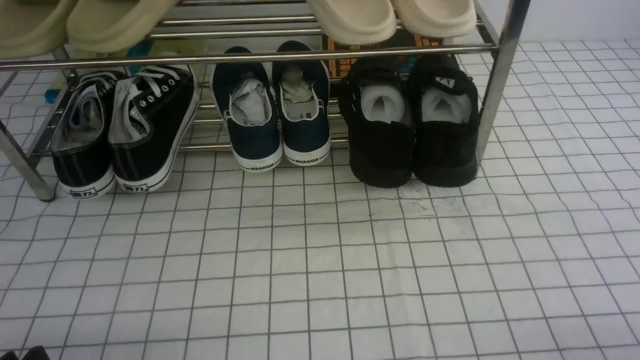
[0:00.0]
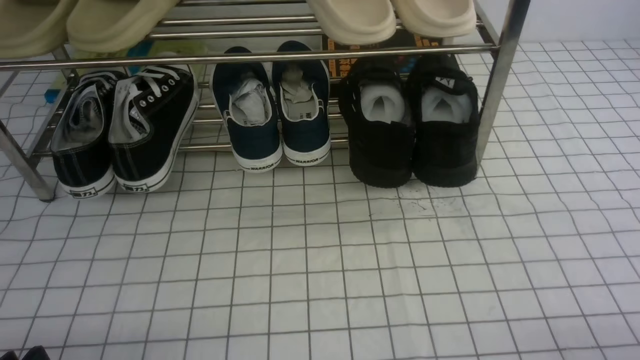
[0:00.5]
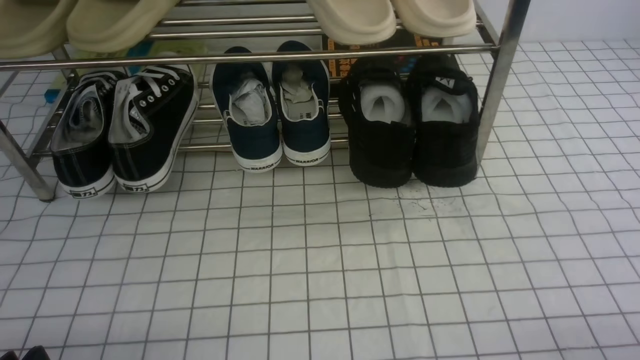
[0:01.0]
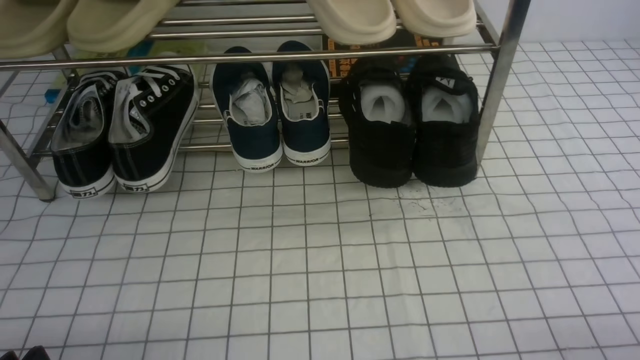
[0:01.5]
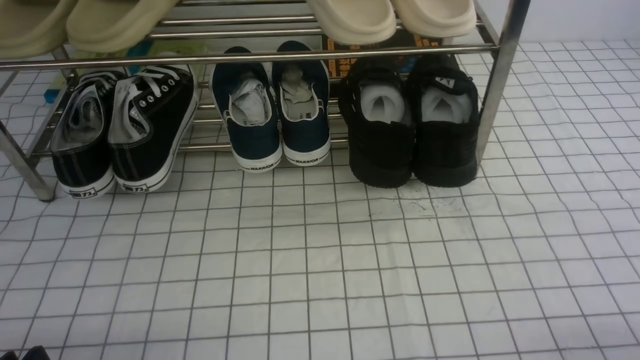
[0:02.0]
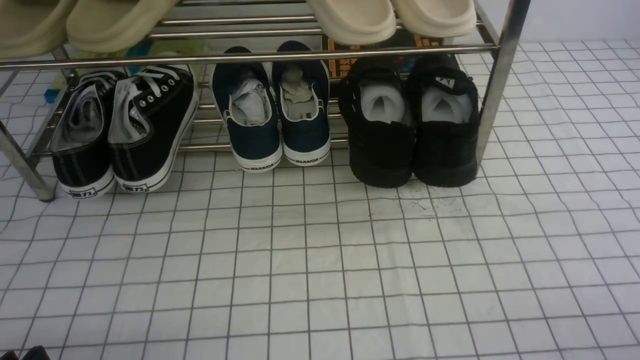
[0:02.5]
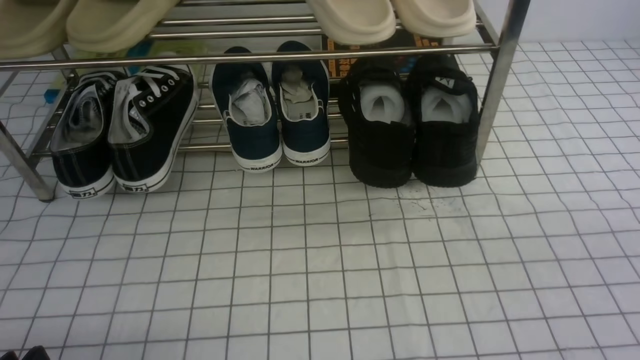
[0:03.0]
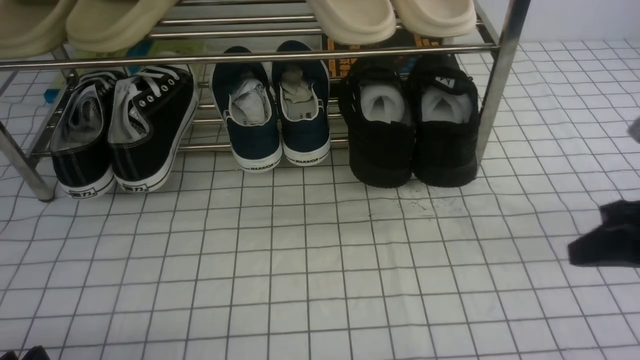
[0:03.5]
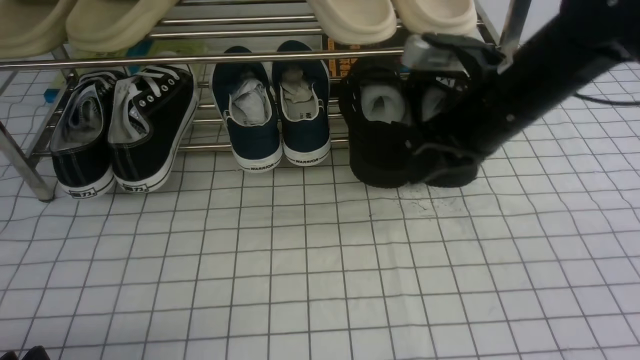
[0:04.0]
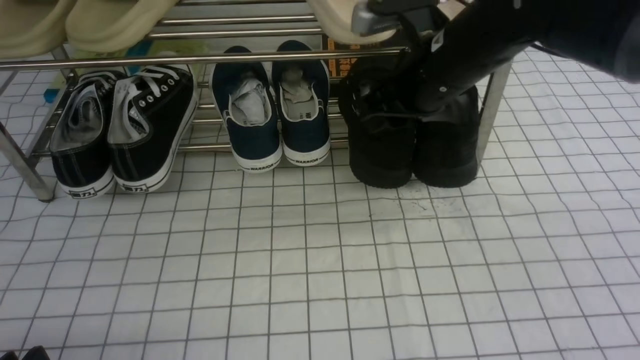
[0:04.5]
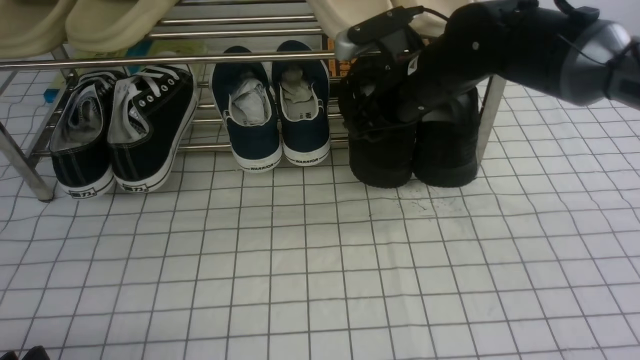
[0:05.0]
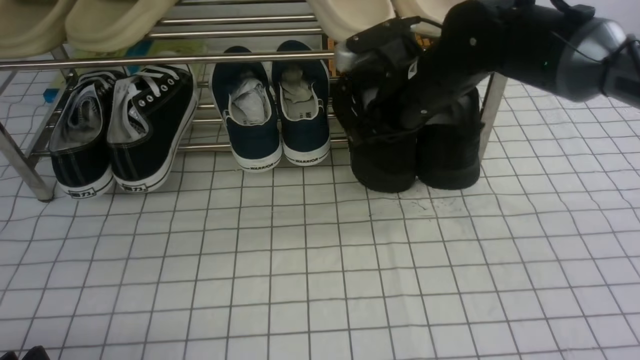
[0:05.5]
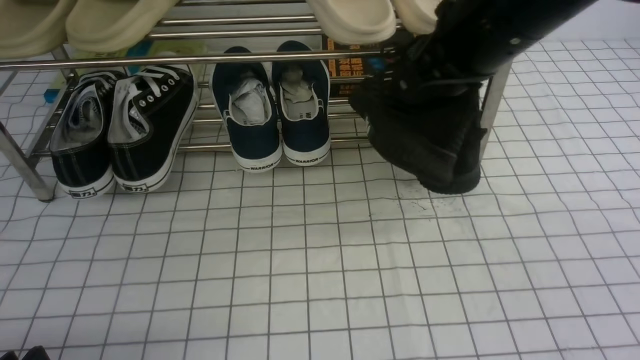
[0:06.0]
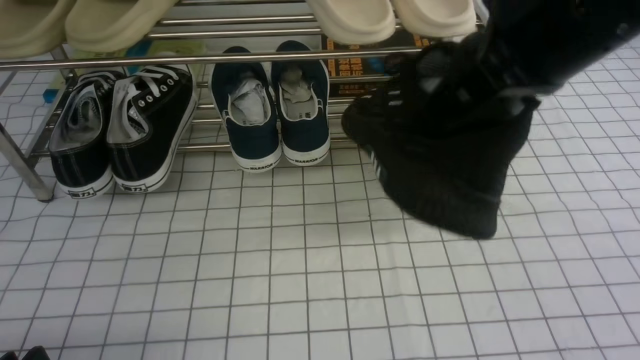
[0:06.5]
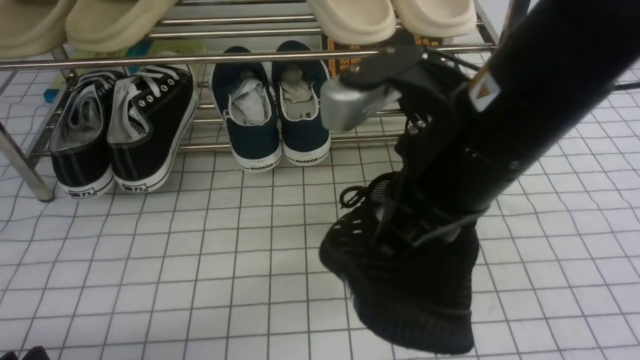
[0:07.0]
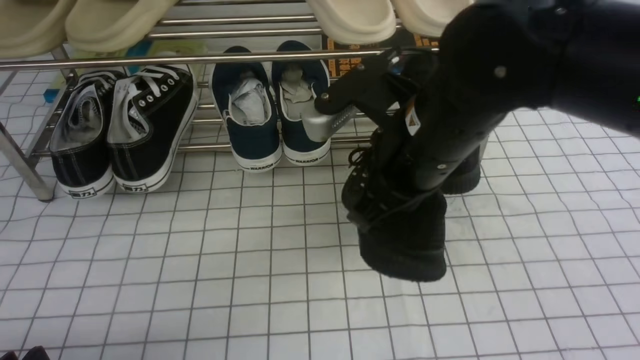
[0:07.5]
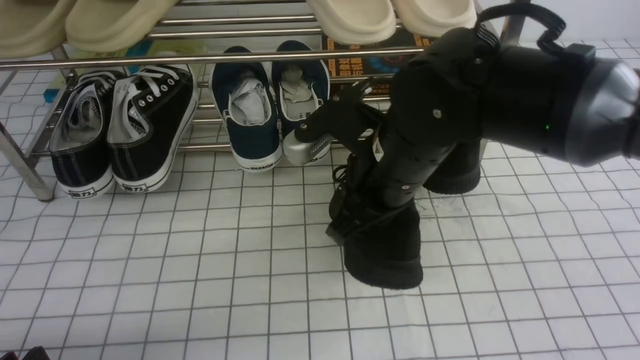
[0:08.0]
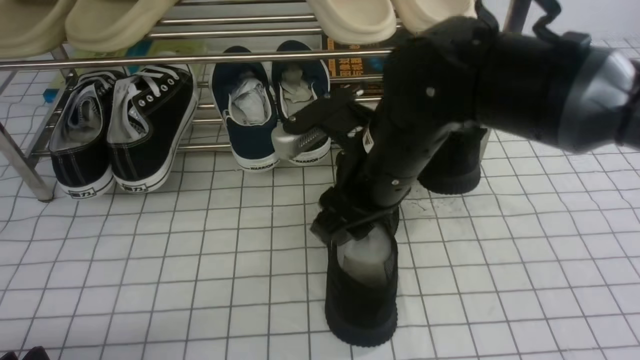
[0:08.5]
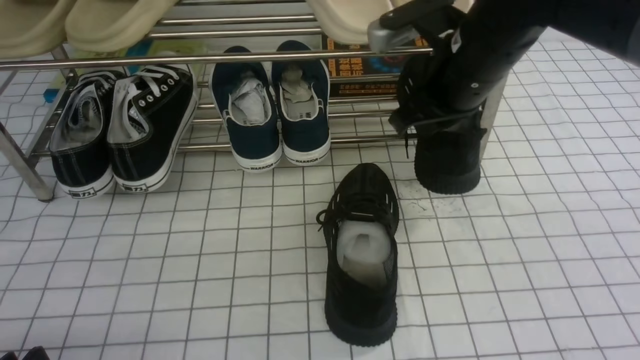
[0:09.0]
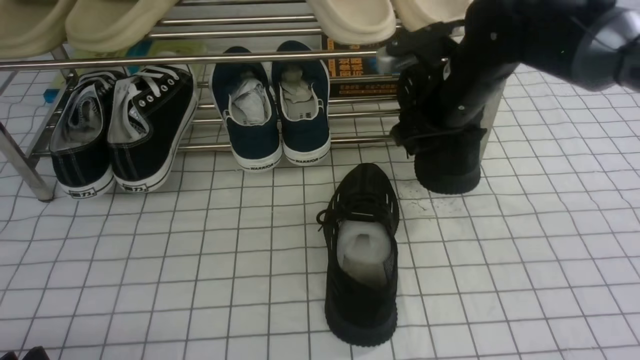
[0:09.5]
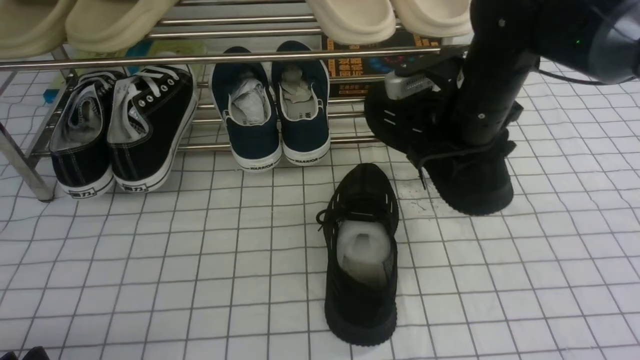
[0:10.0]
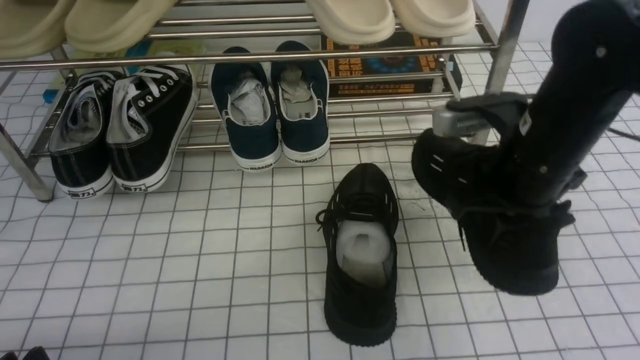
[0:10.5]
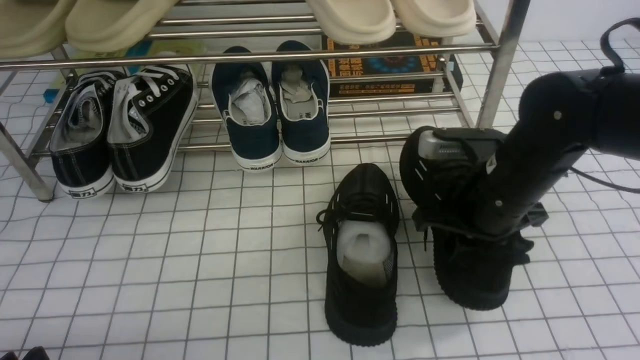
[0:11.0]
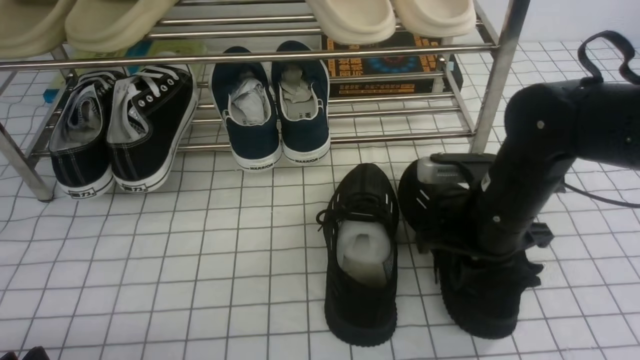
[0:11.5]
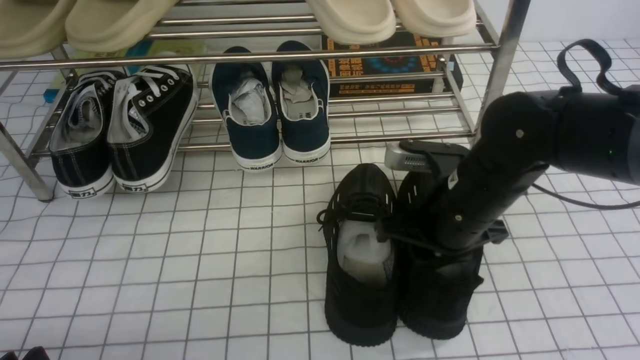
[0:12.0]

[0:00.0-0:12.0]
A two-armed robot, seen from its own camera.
Step, 0:00.0 to 0:05.0: use the right arm to clamp a shoe on the right side of the shoe rack.
Step, 0:05.5 to 0:08.5: use the right arm to take out the clamped shoe from the shoe rack and put it down.
Step, 0:09.0 to 0:09.5: use the right arm to clamp a shoe on the right side of the shoe rack.
0:02.0 to 0:04.0: The right gripper heads forward, to the left and upward, covering about 35 cm, and closes up.
0:04.0 to 0:06.0: The right gripper is displaced upward by roughly 10 cm, and opens and closes again.
0:06.0 to 0:08.0: The right gripper shifts approximately 15 cm downward and to the left.
0:08.0 to 0:10.0: The right gripper travels to the right and forward by roughly 15 cm, and opens, then closes again.
0:10.0 to 0:12.0: The right gripper heads backward and downward, covering about 10 cm, and opens its fingers.

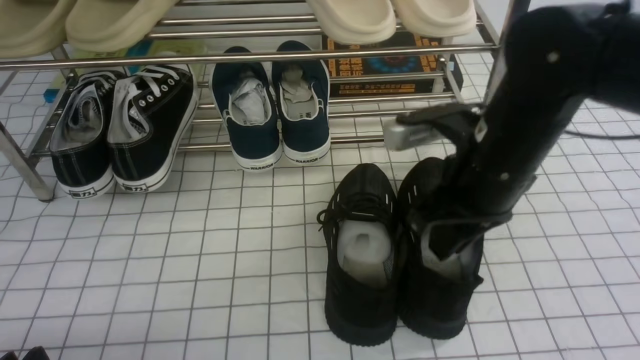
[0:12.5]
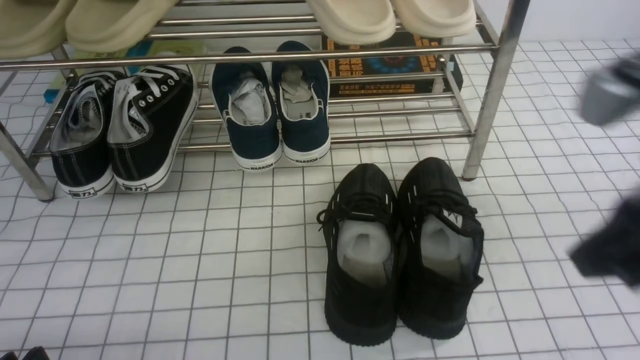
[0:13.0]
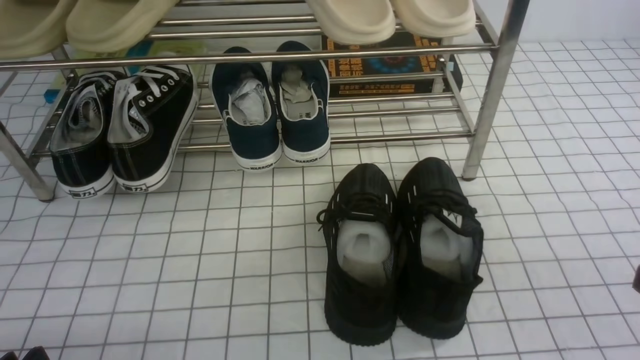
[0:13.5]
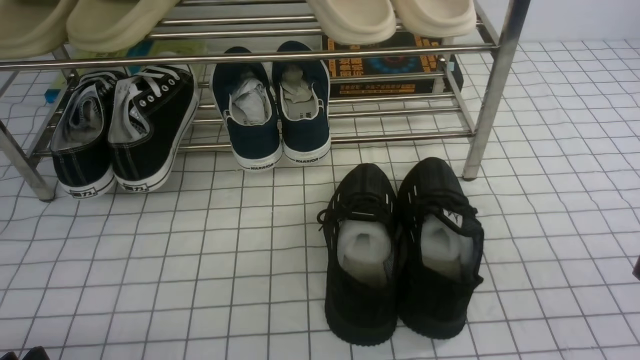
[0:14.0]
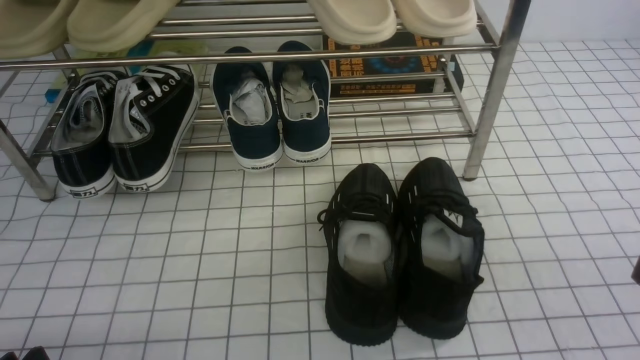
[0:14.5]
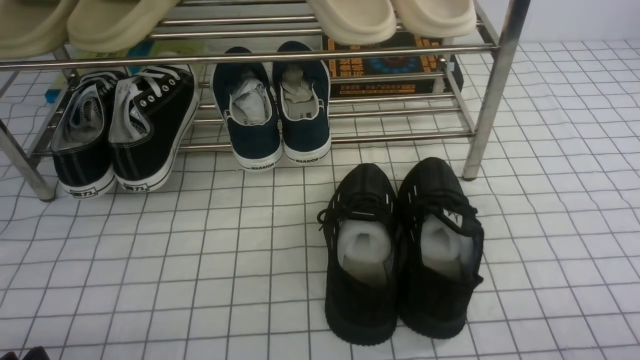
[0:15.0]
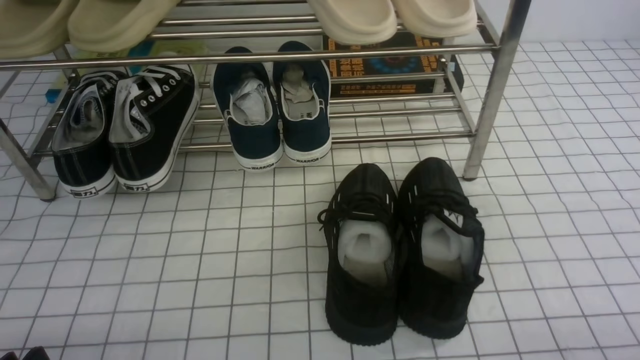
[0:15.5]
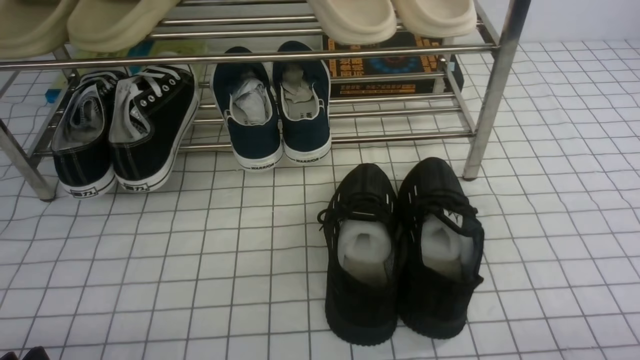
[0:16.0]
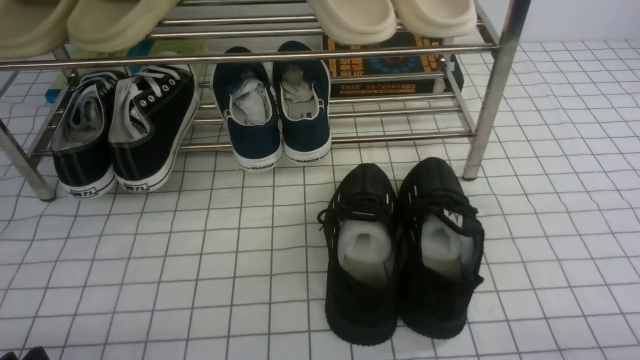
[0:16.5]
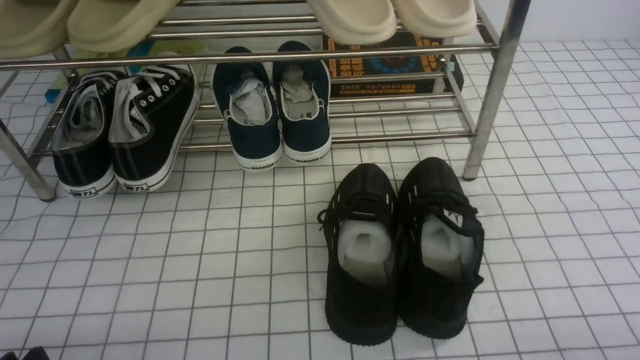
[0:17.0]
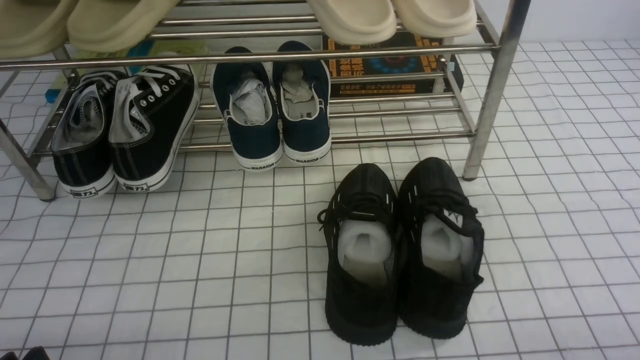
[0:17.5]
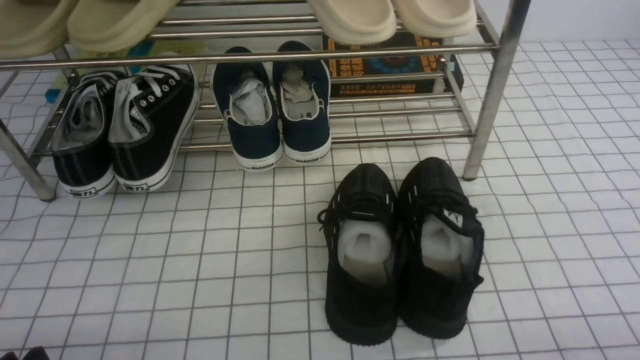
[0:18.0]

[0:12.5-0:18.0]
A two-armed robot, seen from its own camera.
0:12.5 to 0:14.5: The right gripper travels backward and to the right by roughly 25 cm, and closes.
0:16.0 to 0:18.0: The two grippers keep their place.

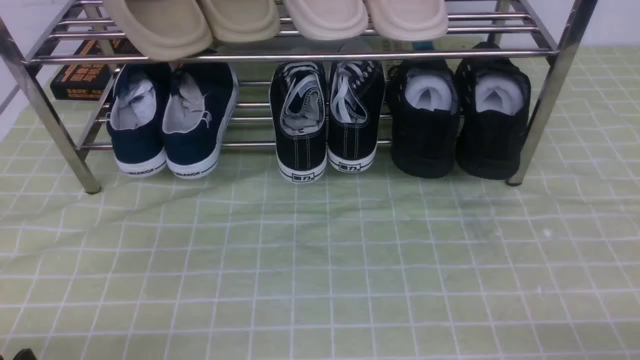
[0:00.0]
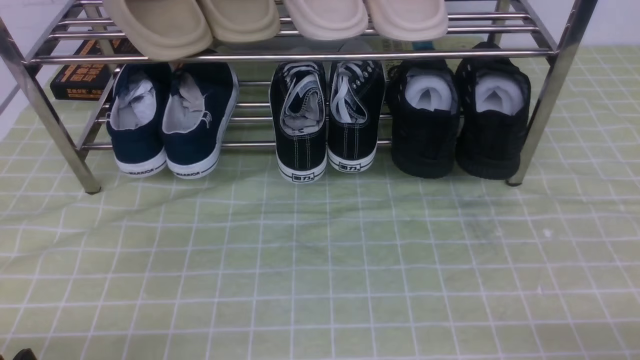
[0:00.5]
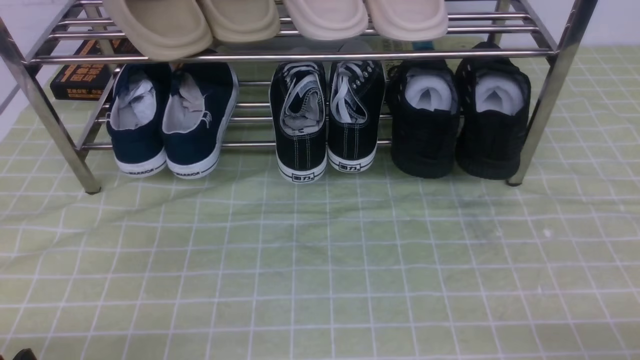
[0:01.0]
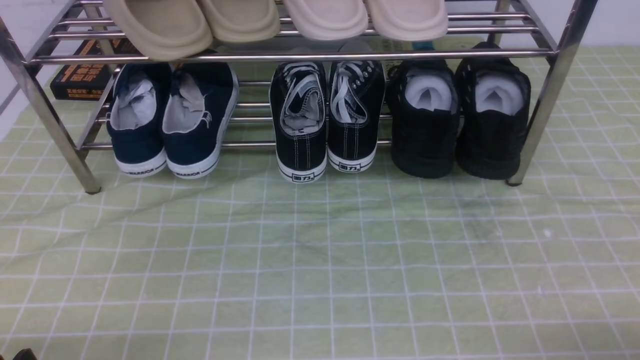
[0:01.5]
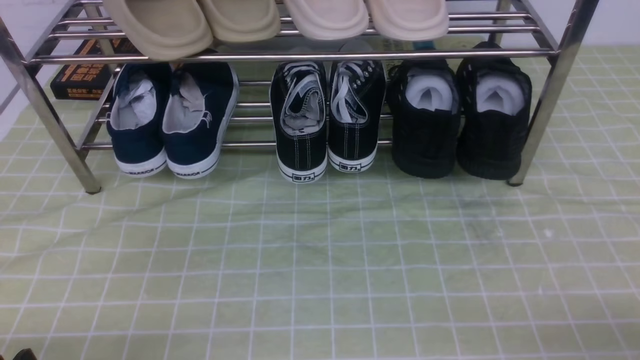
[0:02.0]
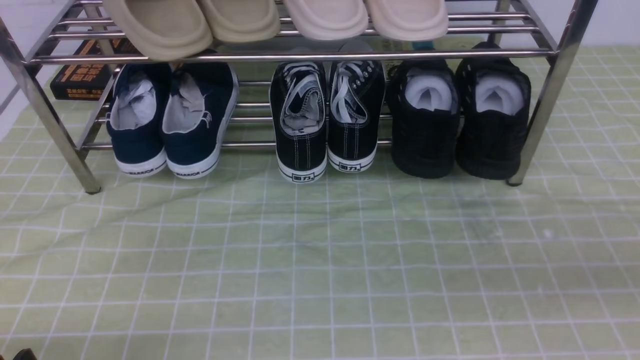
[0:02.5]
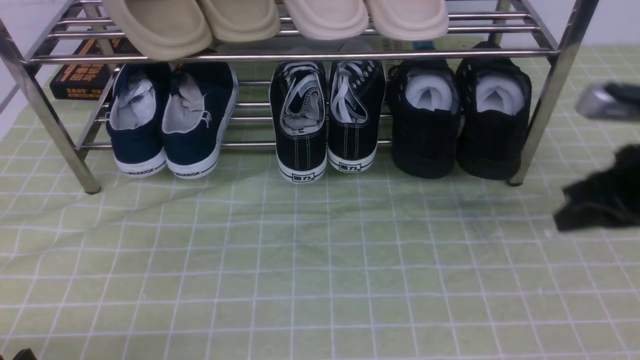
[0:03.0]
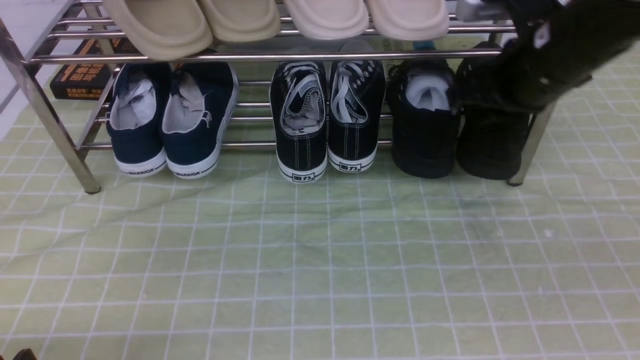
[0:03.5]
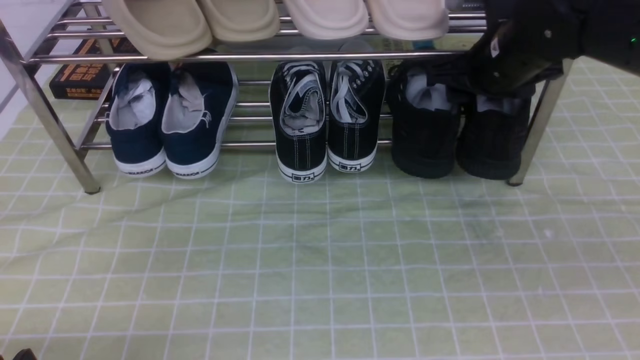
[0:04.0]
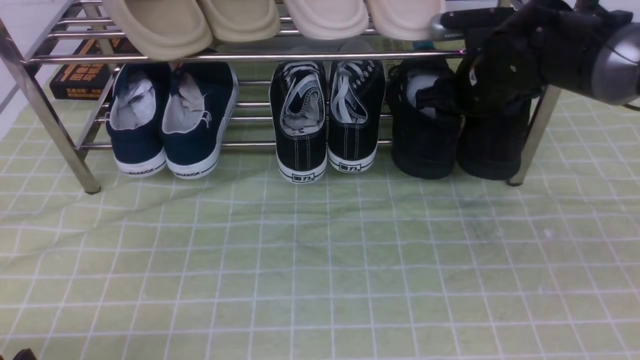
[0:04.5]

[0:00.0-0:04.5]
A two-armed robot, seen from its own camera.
0:02.0 to 0:04.5: The right gripper moves forward, roughly 35 cm, and opens its fingers.
